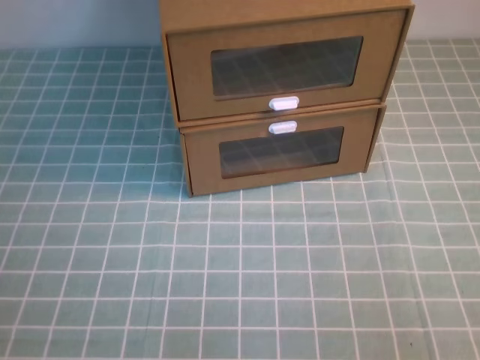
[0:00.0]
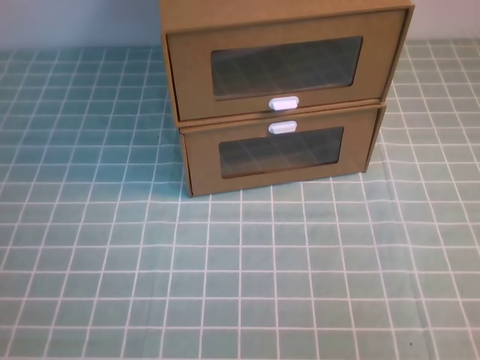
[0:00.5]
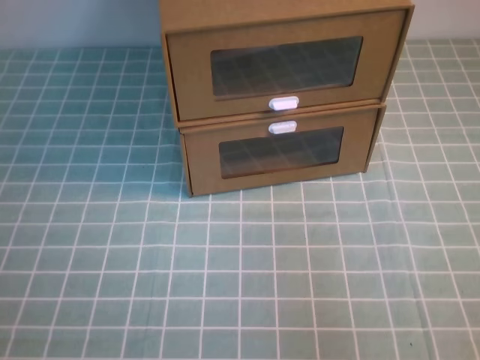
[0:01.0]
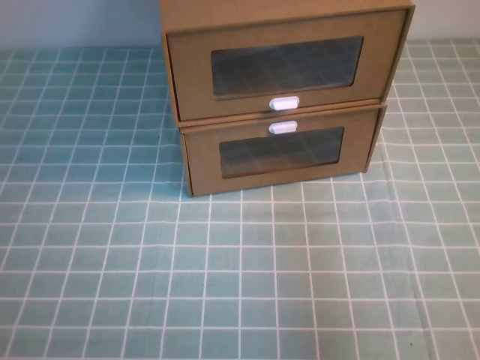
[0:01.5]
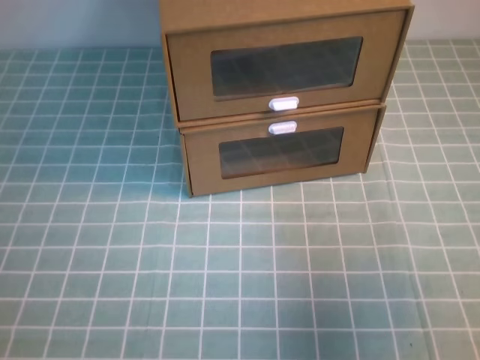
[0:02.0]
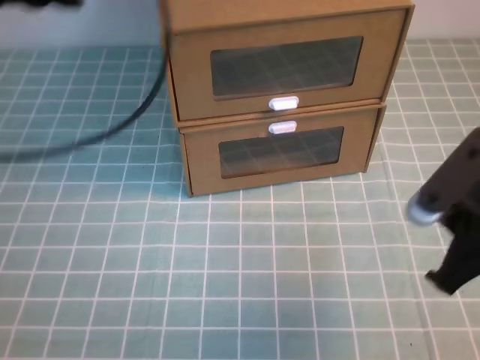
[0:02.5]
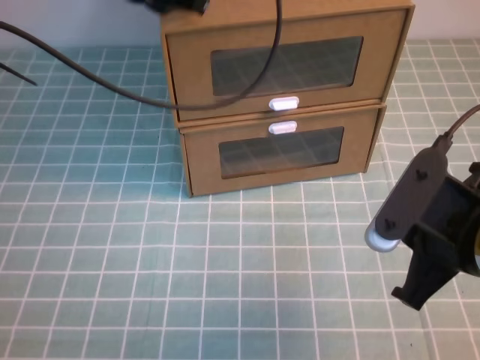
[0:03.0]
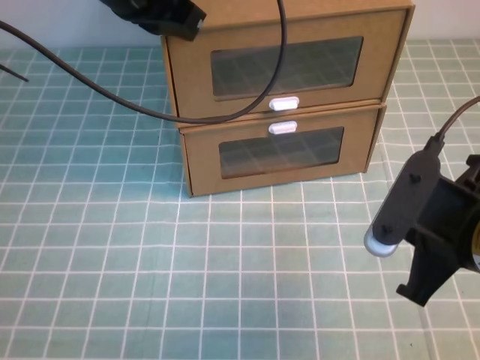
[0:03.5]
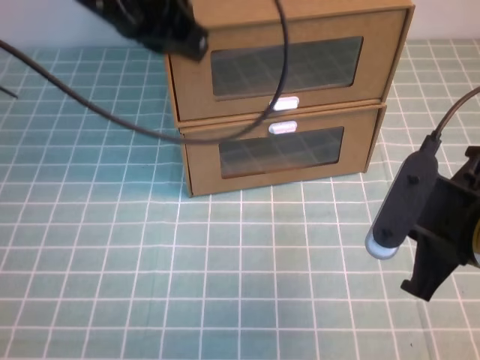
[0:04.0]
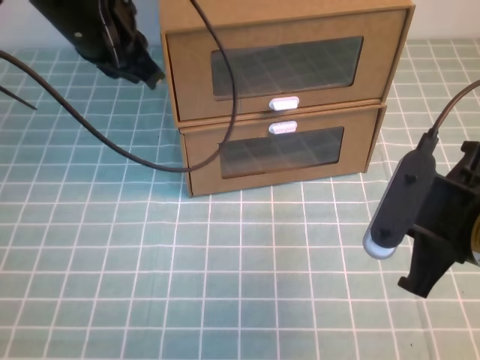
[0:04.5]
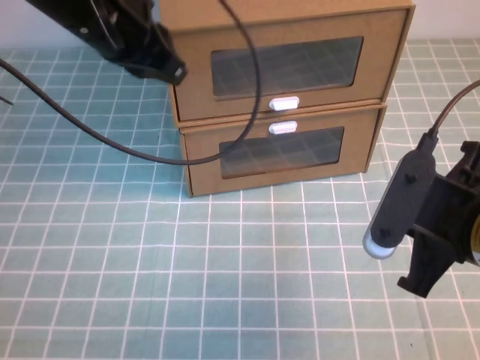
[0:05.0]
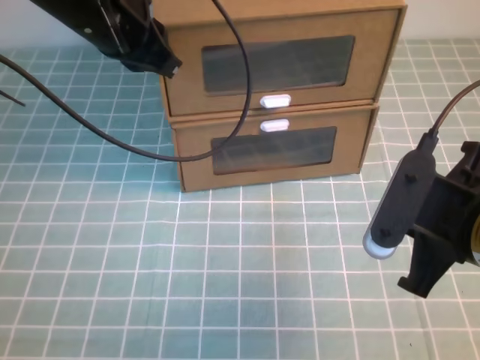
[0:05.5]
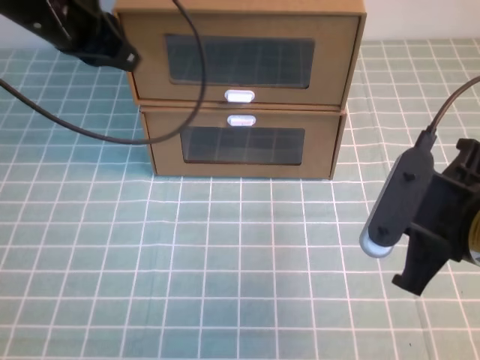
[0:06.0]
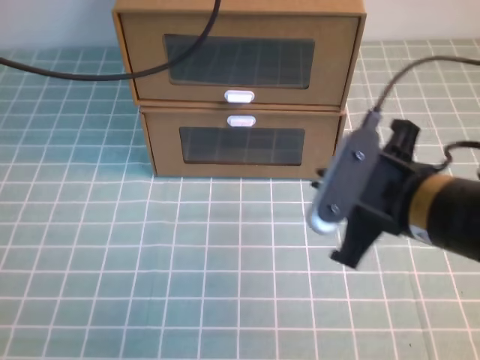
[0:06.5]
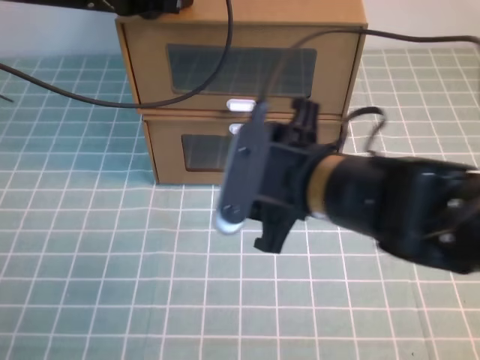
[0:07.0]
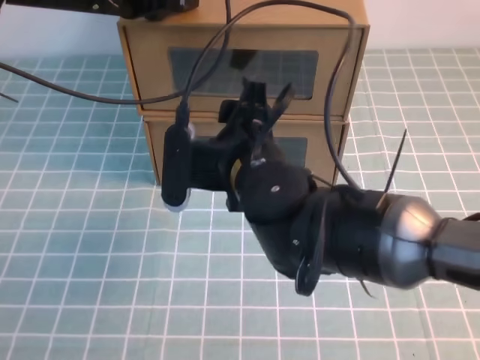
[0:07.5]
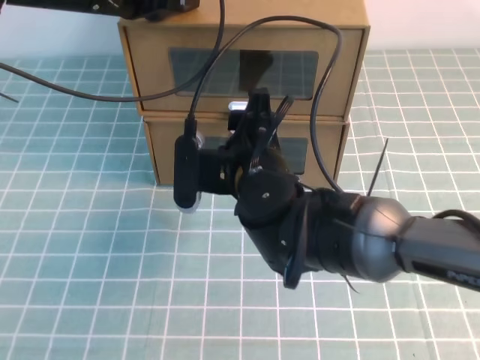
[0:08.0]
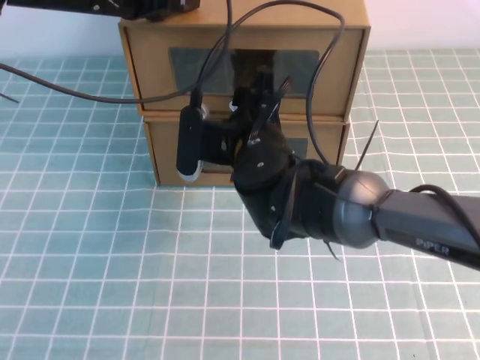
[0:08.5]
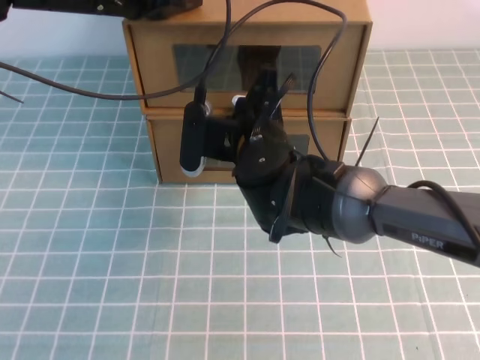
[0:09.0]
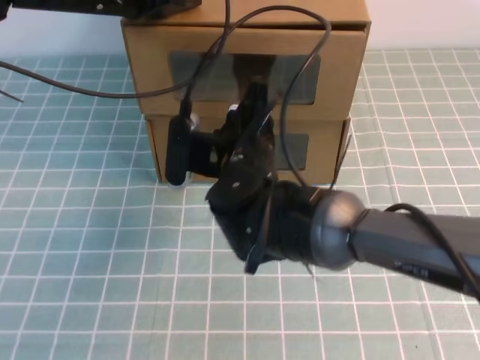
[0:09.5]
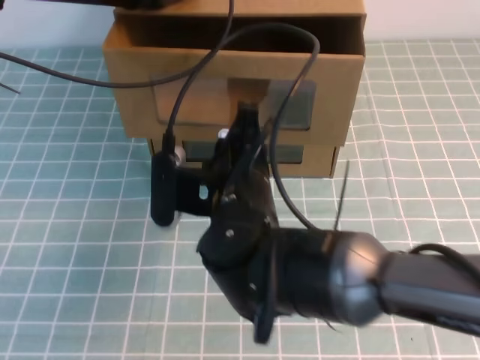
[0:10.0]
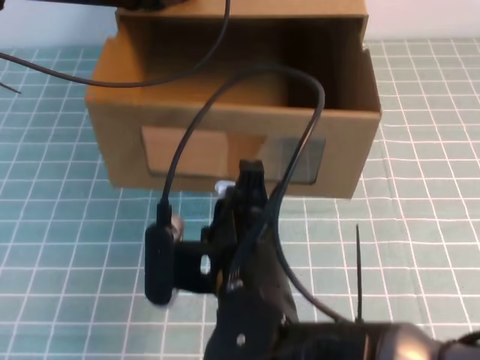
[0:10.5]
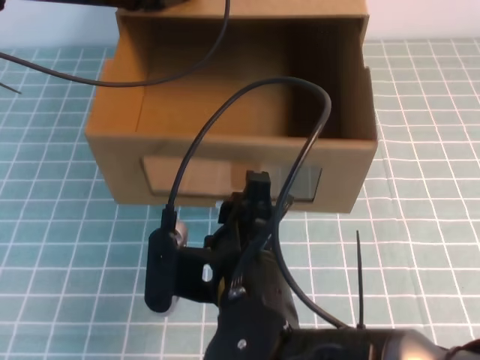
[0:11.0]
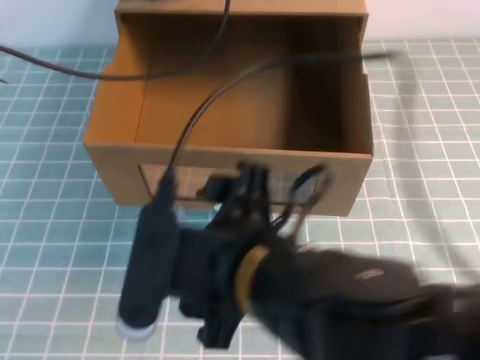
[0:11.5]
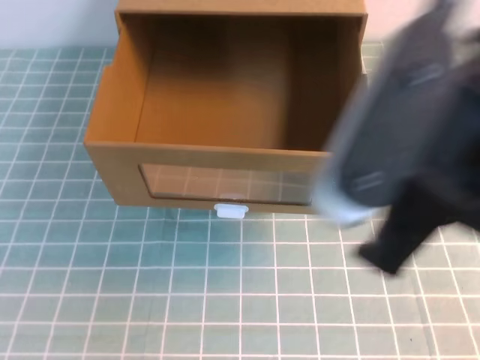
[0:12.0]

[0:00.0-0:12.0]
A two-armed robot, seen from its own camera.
Task of the whole recording: open the shoebox on the cyan tablecloth.
0:00.0 to 0:02.0: The left gripper heads upward, covering roughly 20 cm; the right gripper heads forward, covering roughly 20 cm.
0:02.0 to 0:04.0: The right gripper moves to the left, roughly 10 cm, while the left gripper travels forward and to the right by some 30 cm.
0:04.0 to 0:06.0: The left gripper moves to the left, roughly 5 cm.
0:06.0 to 0:08.0: The left gripper ends up approximately 5 cm from where it was; the right gripper goes some 20 cm to the left and forward, and opens up.
0:08.0 to 0:10.0: The right gripper closes.
0:10.0 to 0:12.0: The right gripper travels upward, backward and to the right by some 25 cm, and opens and closes again. The left gripper moves upward and backward, approximately 25 cm.

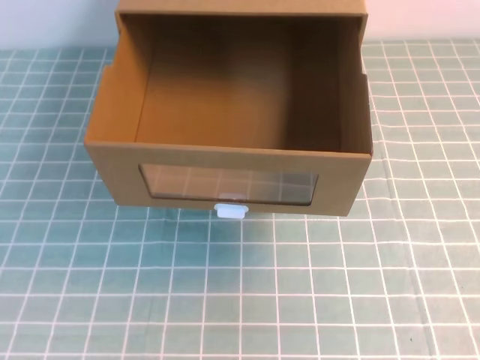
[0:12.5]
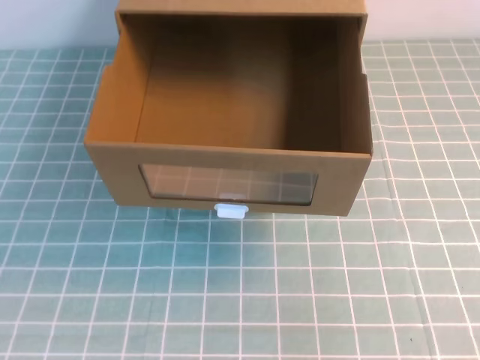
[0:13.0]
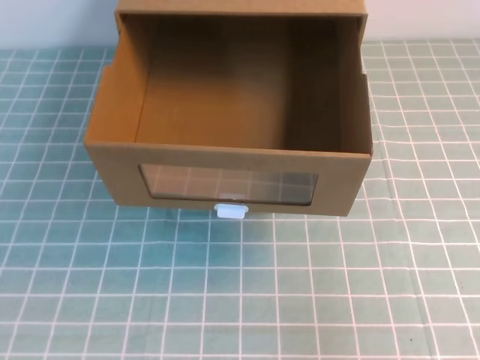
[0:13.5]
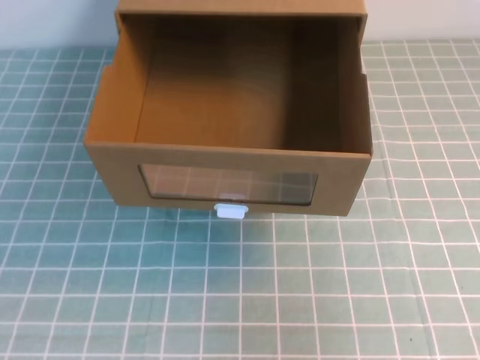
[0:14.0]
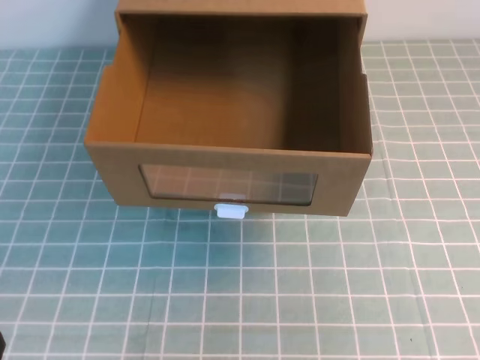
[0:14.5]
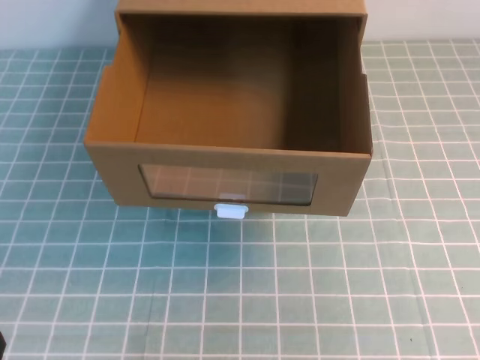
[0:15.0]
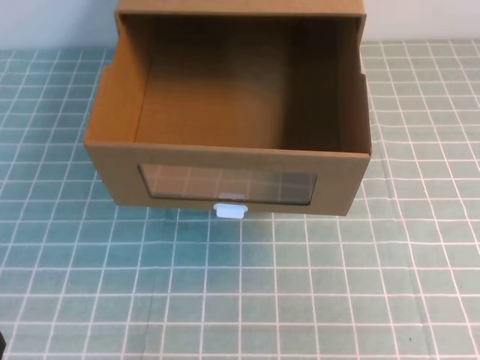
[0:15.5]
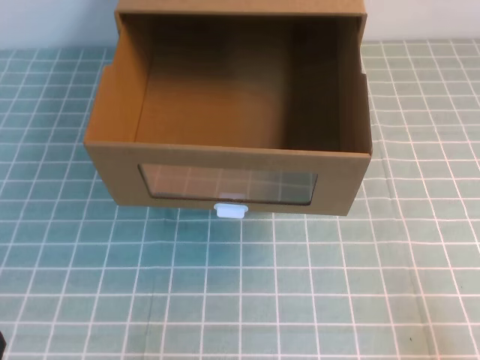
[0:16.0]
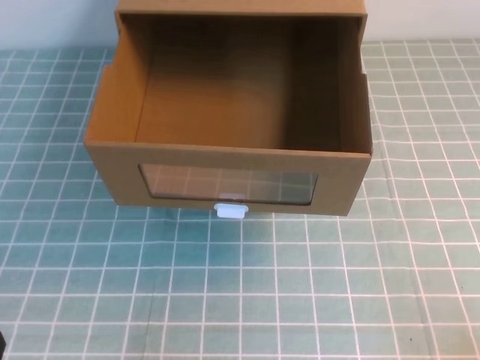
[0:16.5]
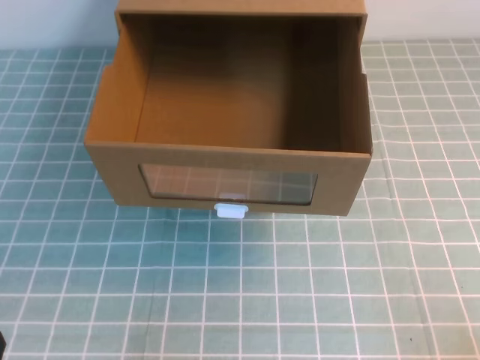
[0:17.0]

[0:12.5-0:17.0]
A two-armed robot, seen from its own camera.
Task of the whole recording: open the shoebox on the cyan tablecloth.
0:12.5 to 0:14.5: The left gripper moves downward, some 35 cm, while the right gripper heads downward, covering about 10 cm.
